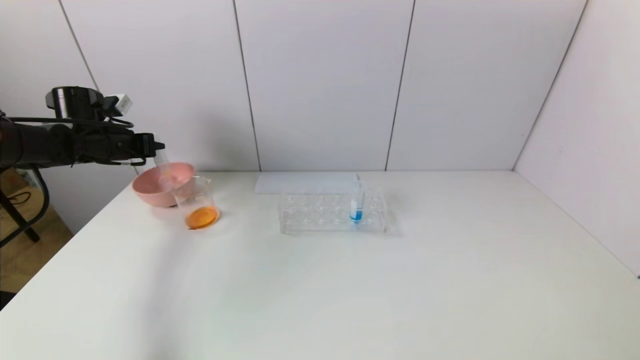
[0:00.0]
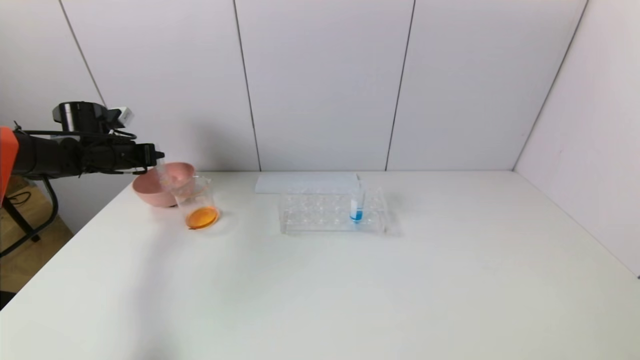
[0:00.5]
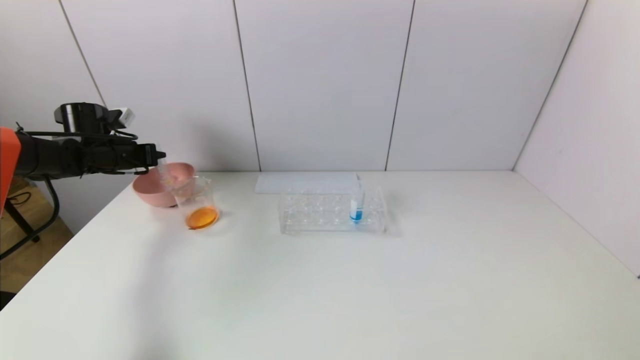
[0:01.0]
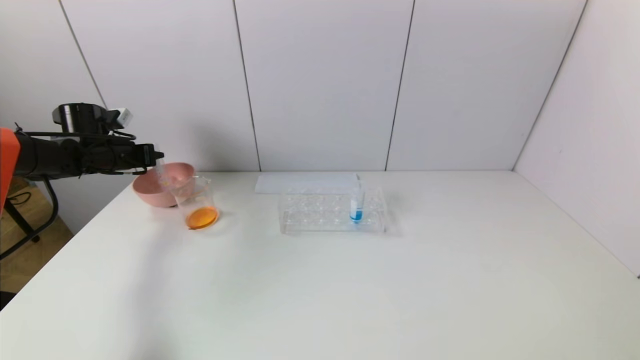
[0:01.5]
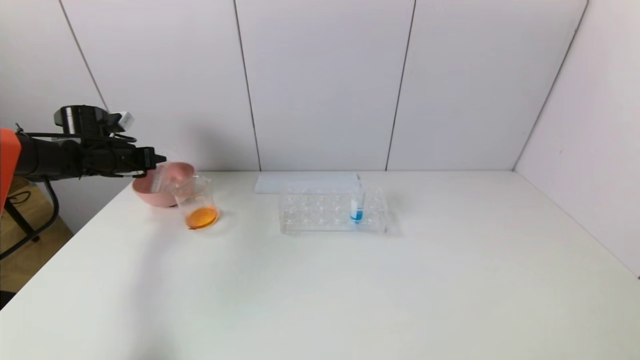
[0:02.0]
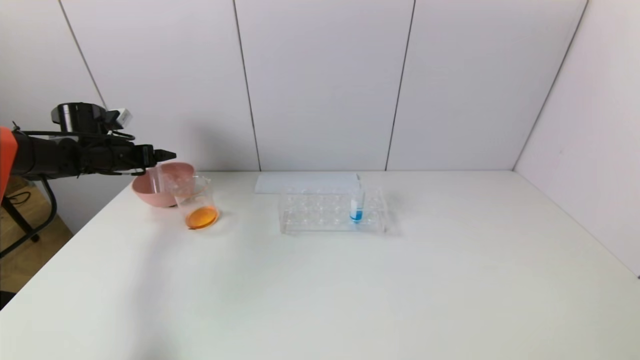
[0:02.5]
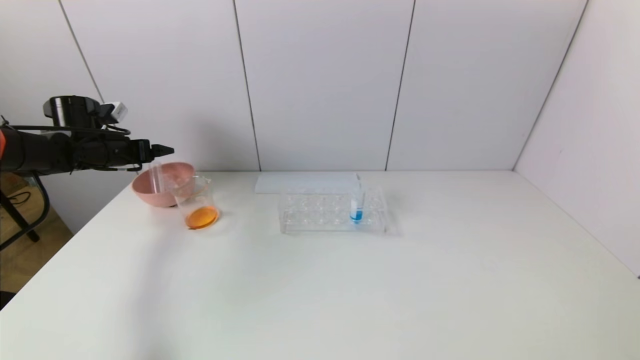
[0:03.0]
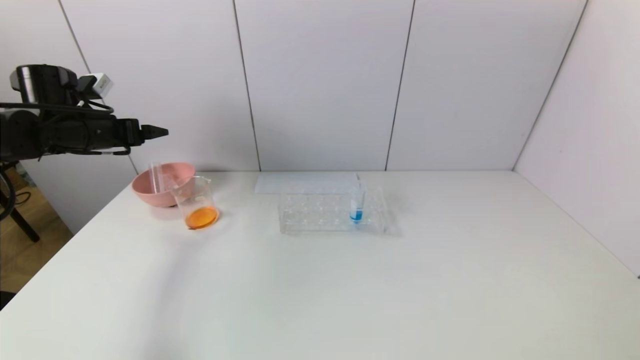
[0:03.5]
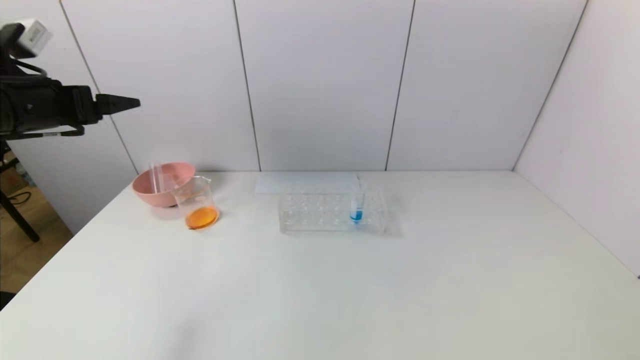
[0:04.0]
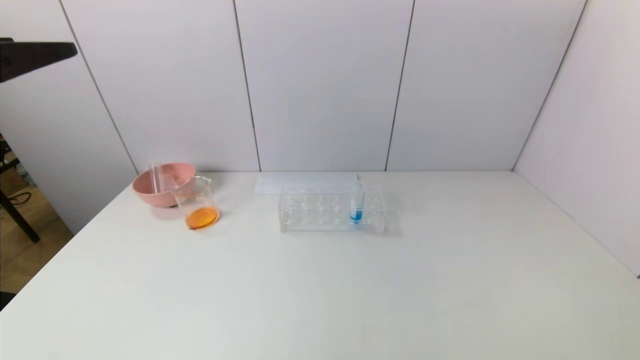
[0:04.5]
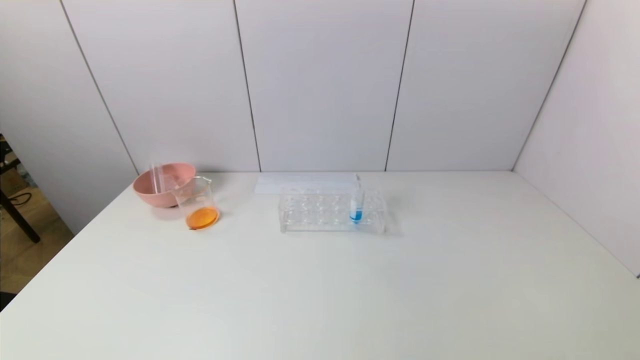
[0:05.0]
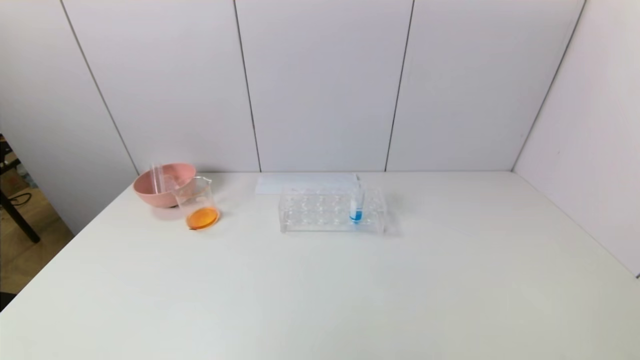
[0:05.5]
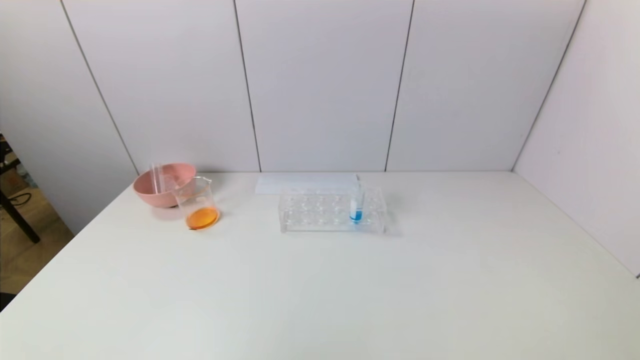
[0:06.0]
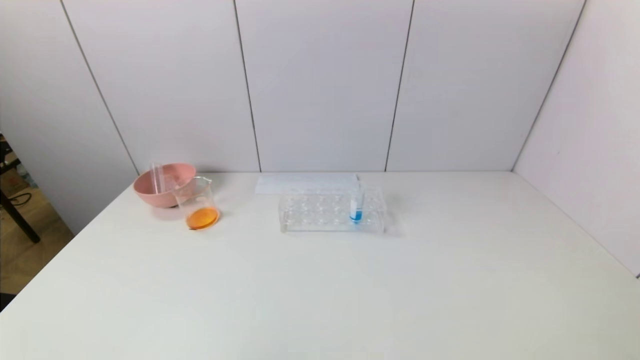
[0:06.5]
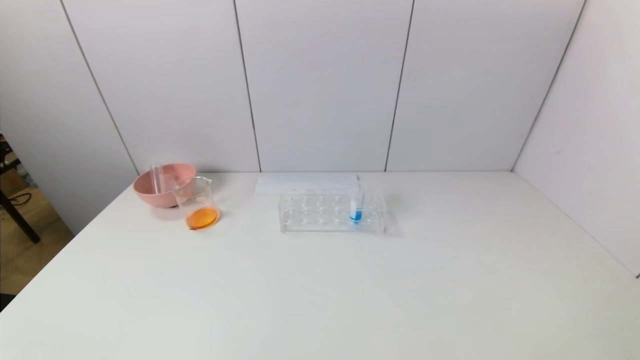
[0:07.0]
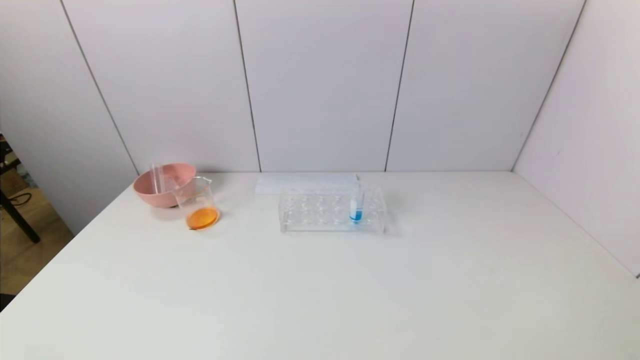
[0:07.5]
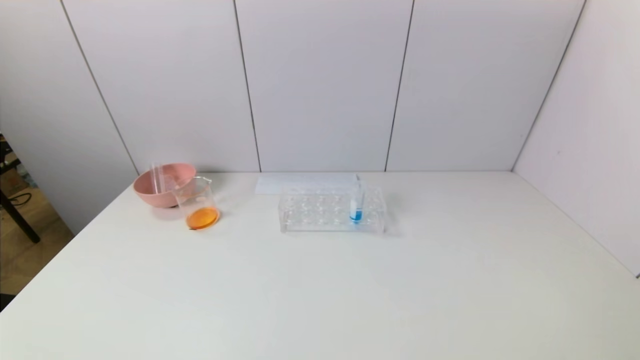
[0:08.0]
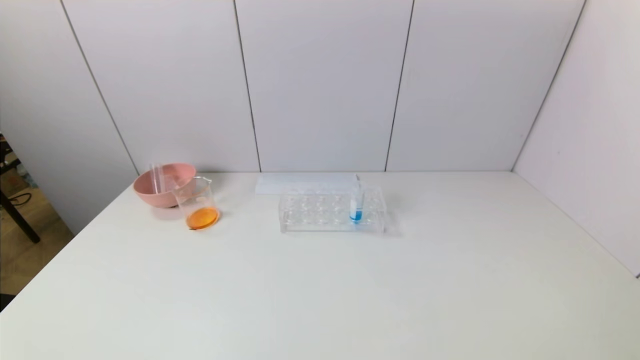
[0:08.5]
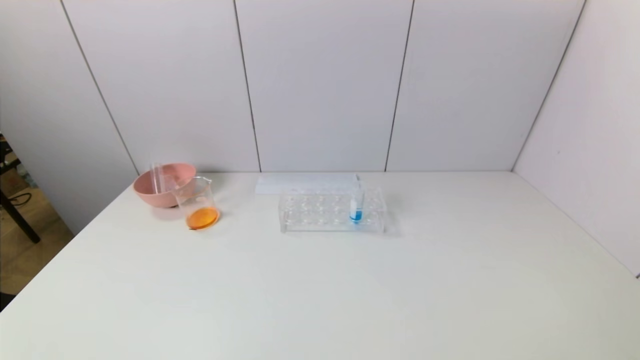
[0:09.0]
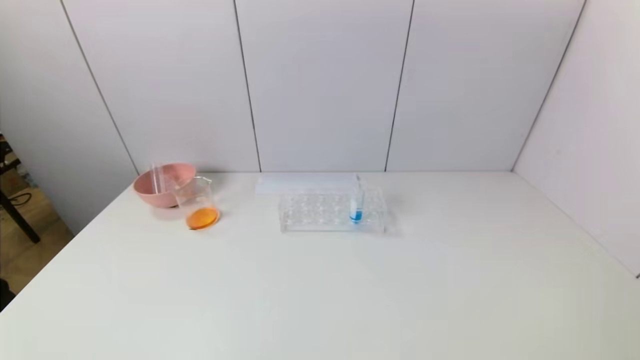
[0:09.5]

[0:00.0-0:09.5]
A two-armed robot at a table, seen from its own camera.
Task of the whole recording: pick up the test tube with yellow pigment and the test tube with red pigment by grippers and pour them into the beaker.
Step, 0:00.0 to 0:02.0: Place the test tube into the pink bowl with the left gripper.
0:00.0 to 0:02.0: The grippers stay close to where they were, moving slightly.
0:02.0 to 0:04.0: The left gripper shifts approximately 20 cm backward and upward, and opens its fingers.
0:04.0 to 0:05.5: The left gripper moves backward, about 30 cm.
